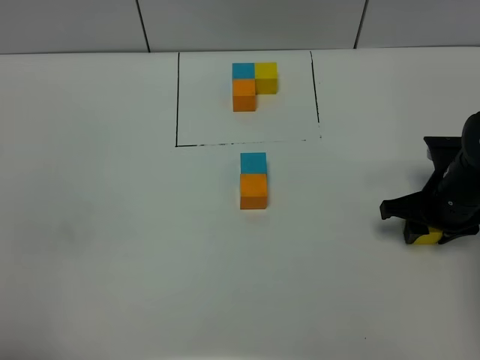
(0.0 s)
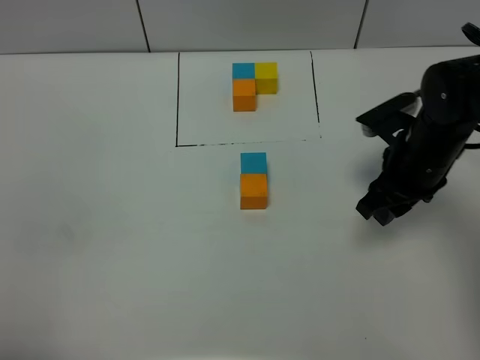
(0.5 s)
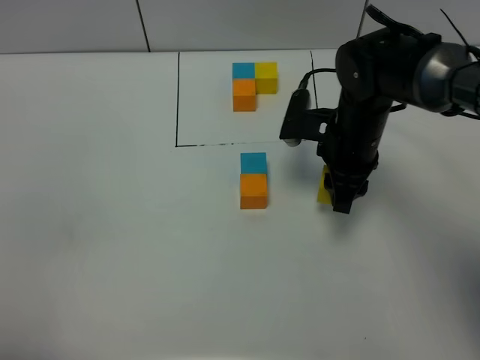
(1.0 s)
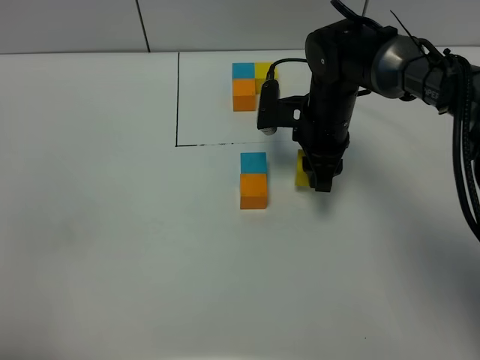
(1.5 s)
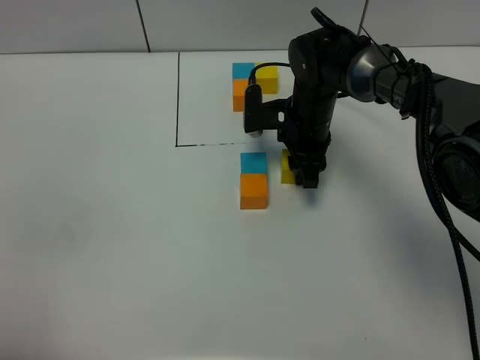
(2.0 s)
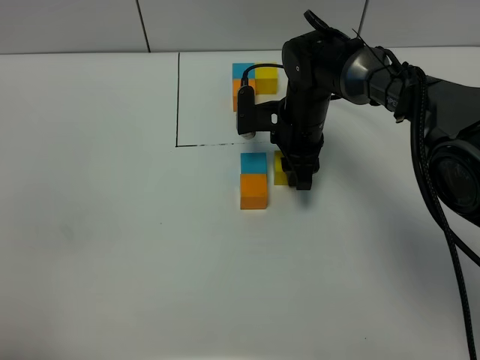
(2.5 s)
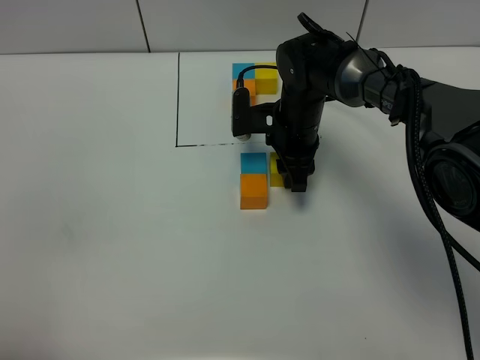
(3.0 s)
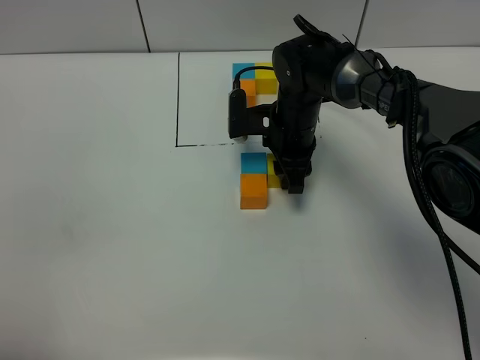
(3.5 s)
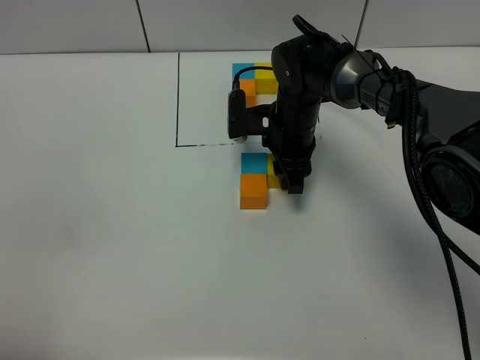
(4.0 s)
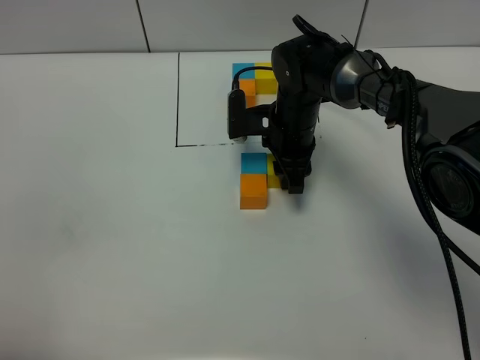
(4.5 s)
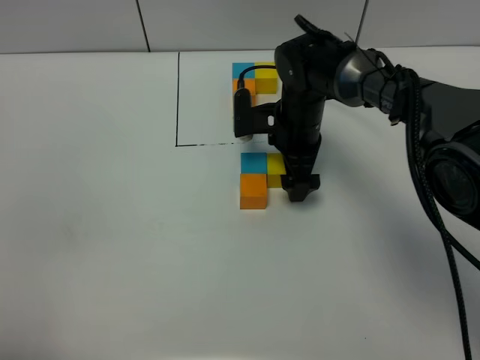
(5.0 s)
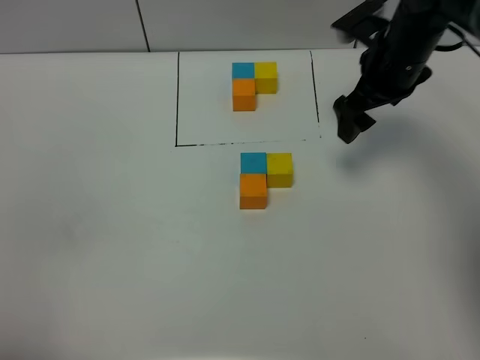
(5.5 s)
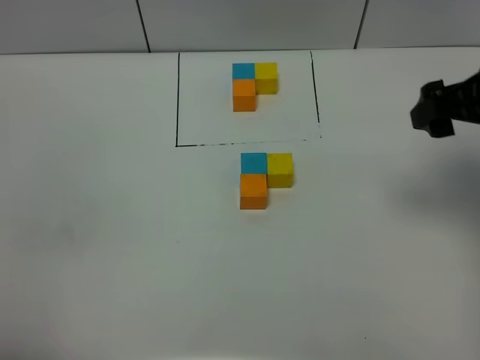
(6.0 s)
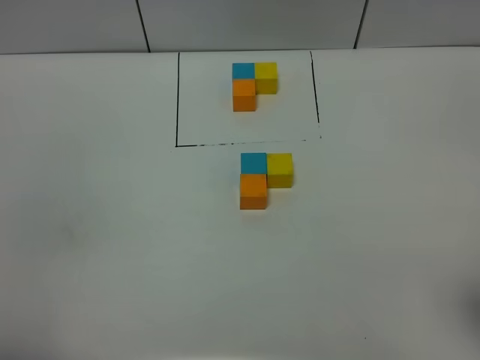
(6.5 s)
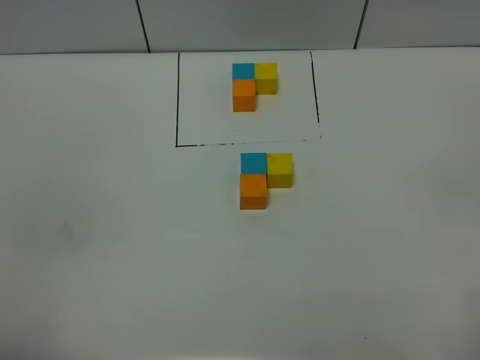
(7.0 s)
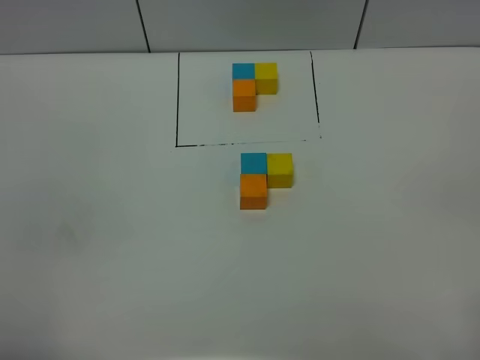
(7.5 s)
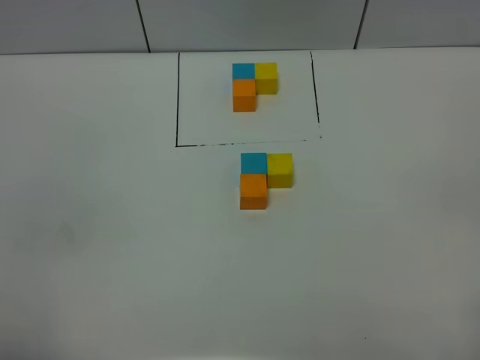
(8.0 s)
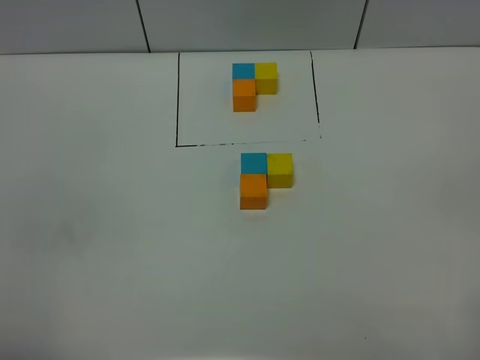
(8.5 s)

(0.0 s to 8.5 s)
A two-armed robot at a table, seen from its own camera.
Task of the whole recording: According to the building block template in front, assemble the scattered blocks together.
Step, 0.0 s - 3.0 s: Put the yellow build block on the right of the blue build block.
0.0 s - 2.0 s: The right gripper is displaced to the left and forward by some 20 cm.
2.0 s - 4.0 s: The grippers stay close to where they were, moving slightly.
4.0 s - 6.5 s: The right gripper is displaced backward, to the right and upward by roughly 40 cm, and opens its fingers.

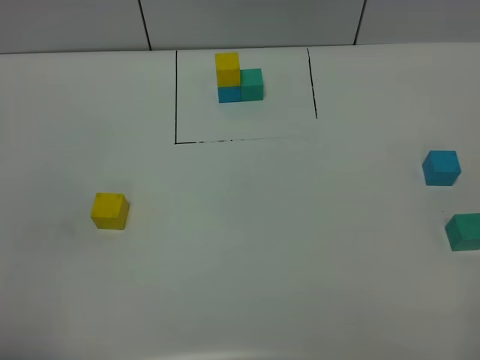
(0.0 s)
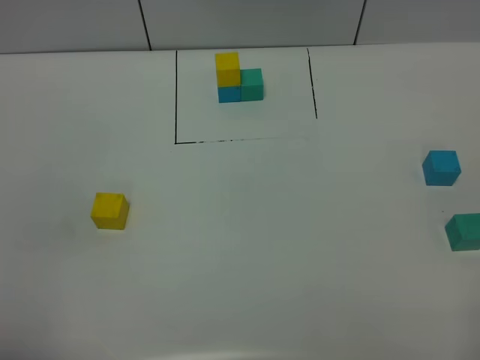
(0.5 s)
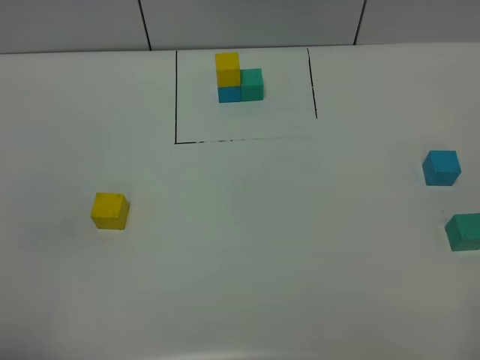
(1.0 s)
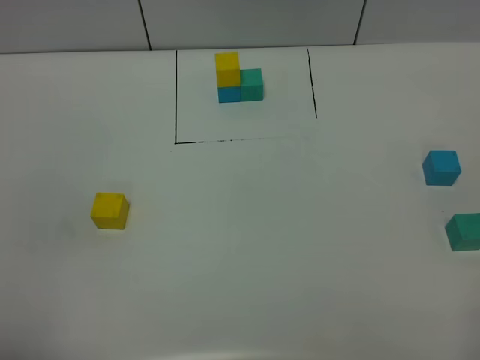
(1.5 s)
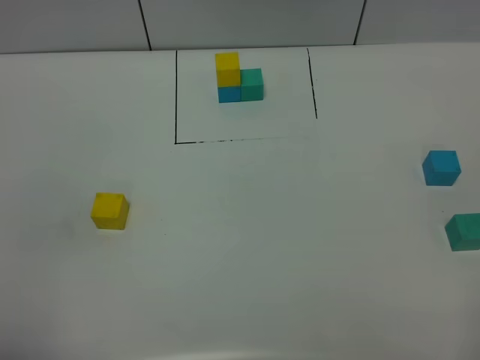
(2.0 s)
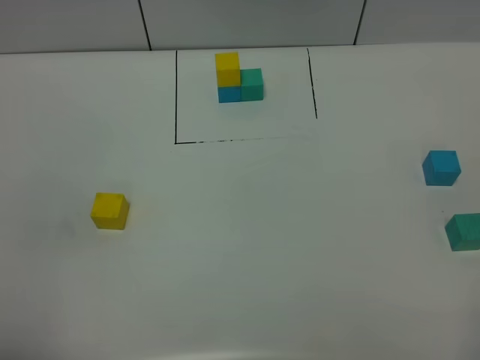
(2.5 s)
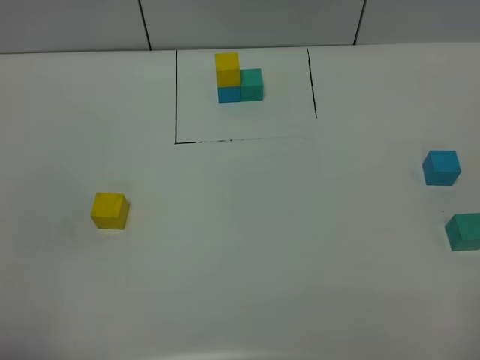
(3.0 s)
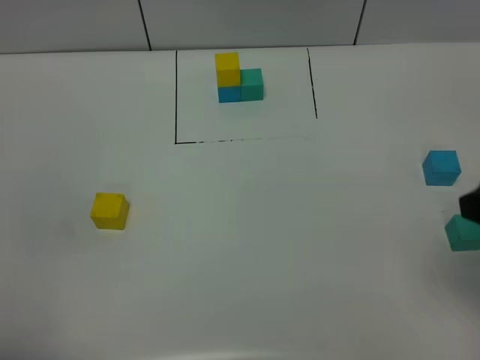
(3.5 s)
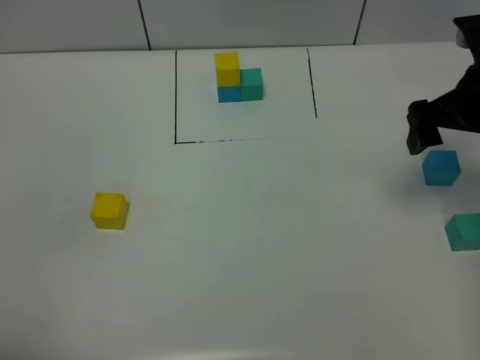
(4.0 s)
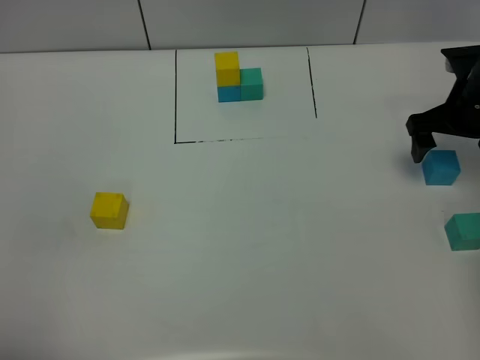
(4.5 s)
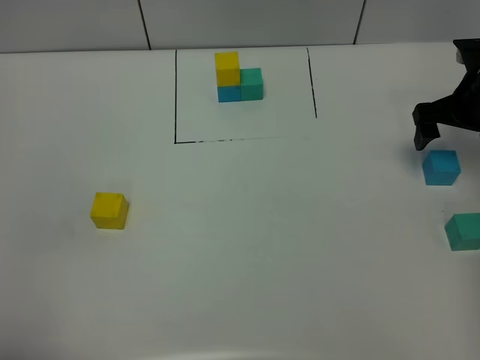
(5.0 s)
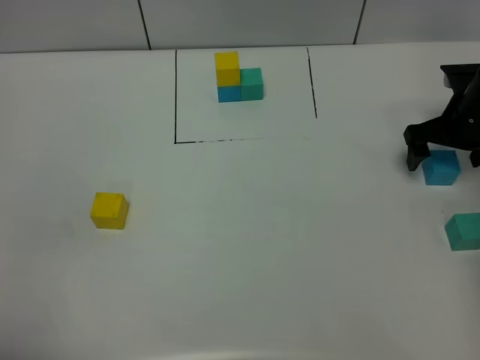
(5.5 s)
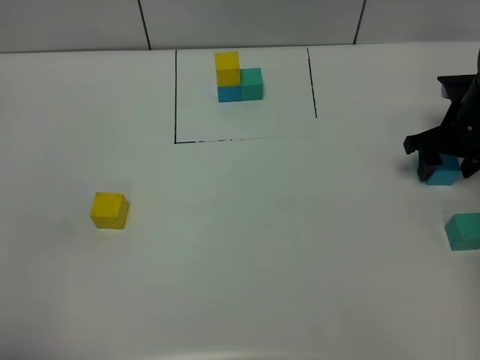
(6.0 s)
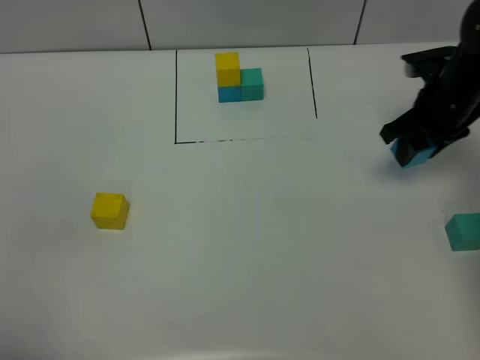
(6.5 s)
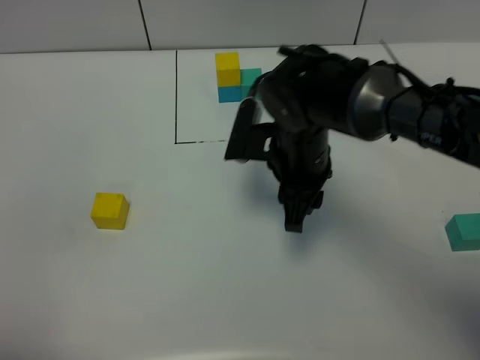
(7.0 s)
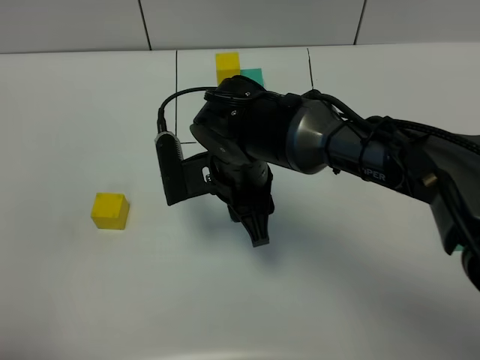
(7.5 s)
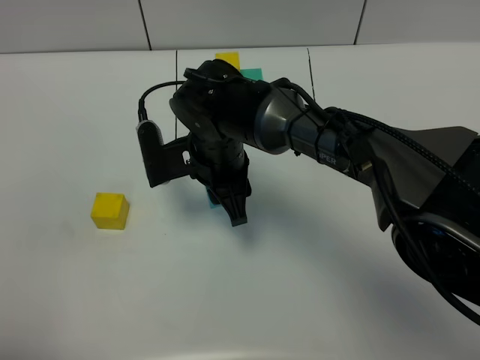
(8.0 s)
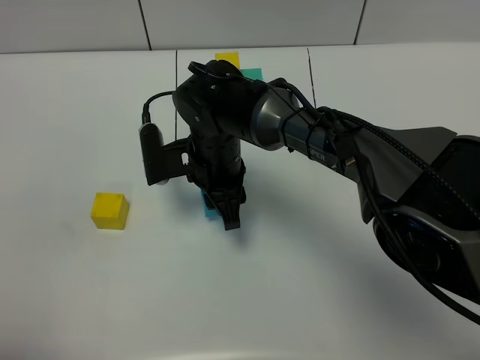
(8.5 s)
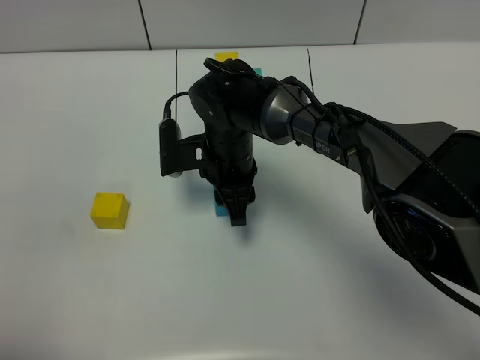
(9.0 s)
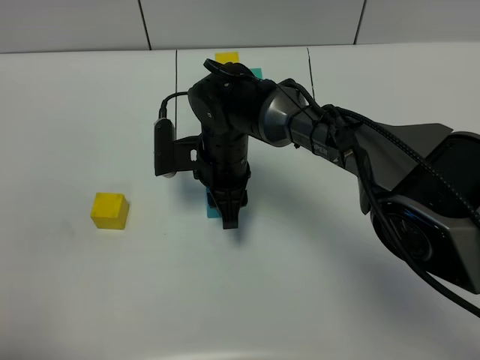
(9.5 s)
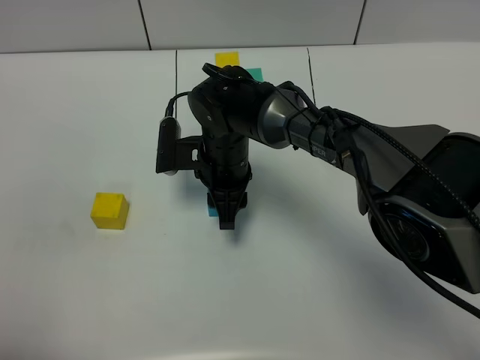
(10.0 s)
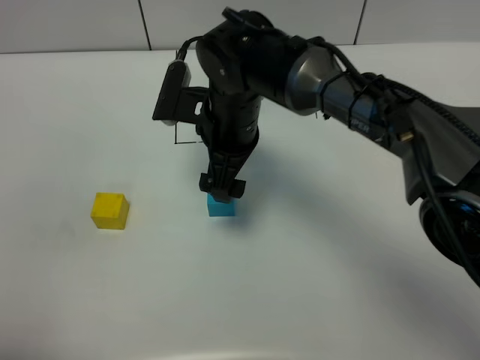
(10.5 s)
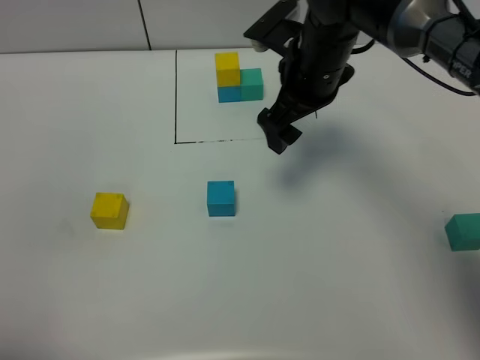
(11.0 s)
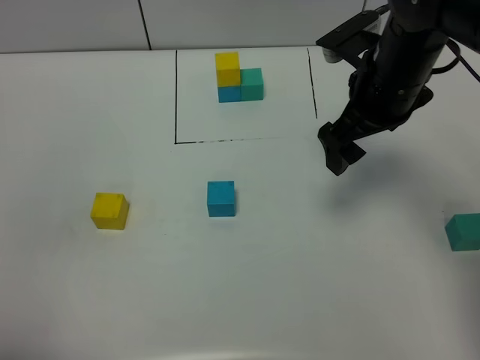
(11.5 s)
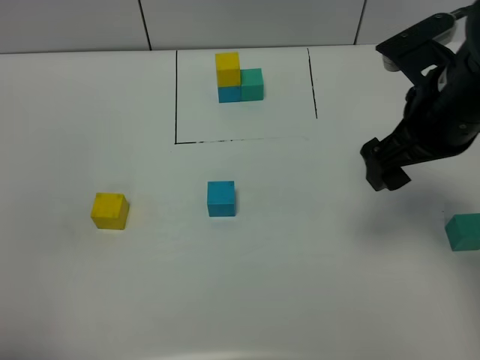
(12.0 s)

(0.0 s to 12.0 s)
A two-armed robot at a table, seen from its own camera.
Task of the whole recording: According to the building block template in front, assemble the scattered blocks together.
Step, 0.0 s - 10.0 s: Put the blue build block in the center of the table.
0.0 s - 2.0 s: Both grippers stay put.
2.0 s - 4.0 s: The right gripper travels forward by about 35 cm.
4.0 s - 6.0 s: The right gripper travels downward, forward and to the right by some 15 cm, and closes its fingers.
6.0 s - 8.0 s: The right gripper heads to the left, covering roughly 35 cm.
8.0 s - 10.0 s: The right gripper moves approximately 5 cm.
10.0 s - 12.0 s: The right gripper heads to the right, upward and backward, covering some 30 cm, and opens its fingers.

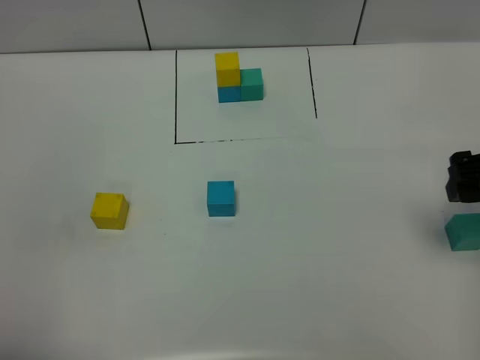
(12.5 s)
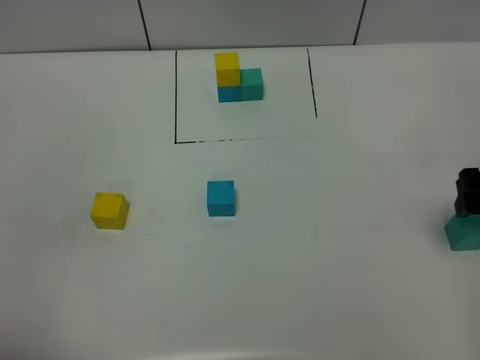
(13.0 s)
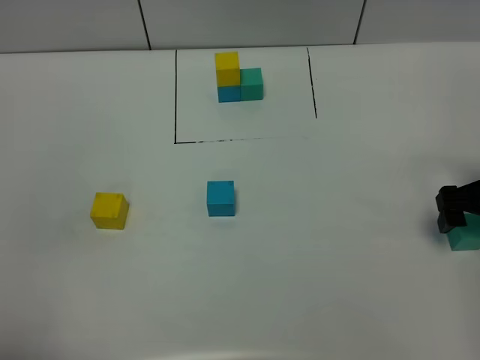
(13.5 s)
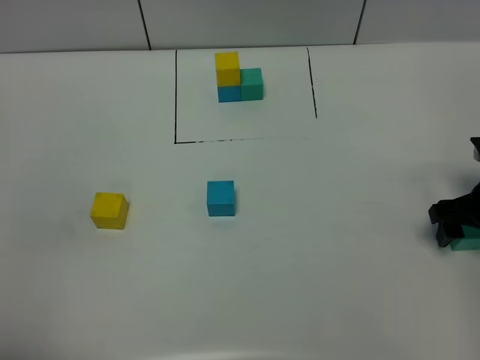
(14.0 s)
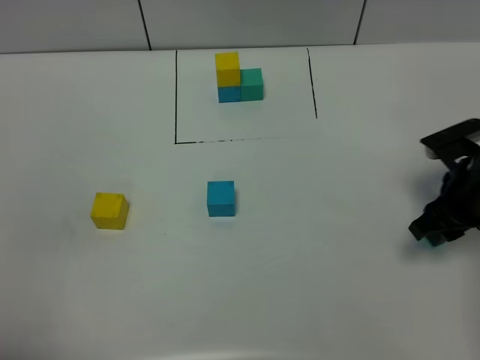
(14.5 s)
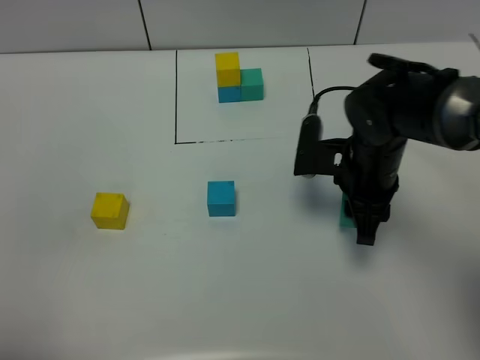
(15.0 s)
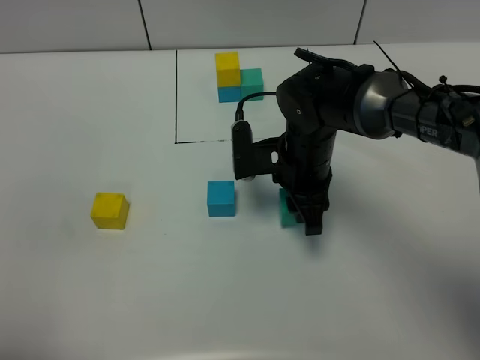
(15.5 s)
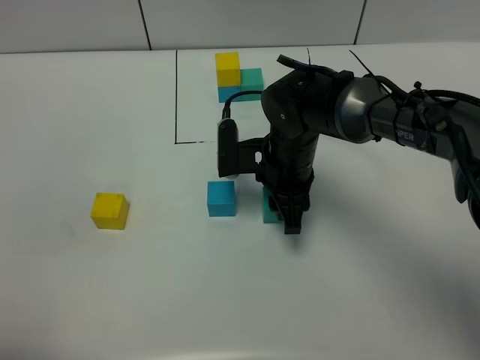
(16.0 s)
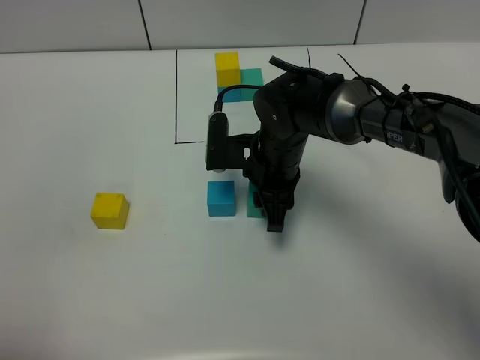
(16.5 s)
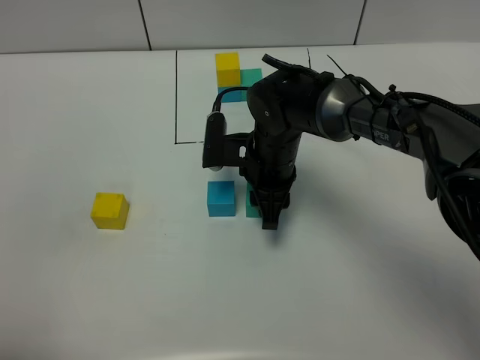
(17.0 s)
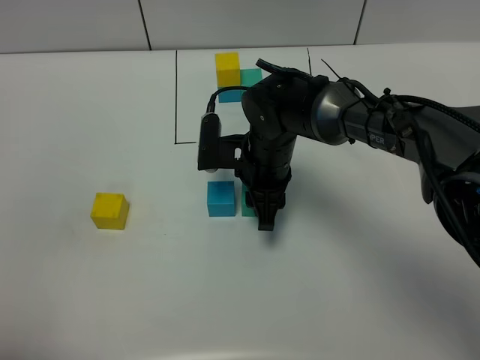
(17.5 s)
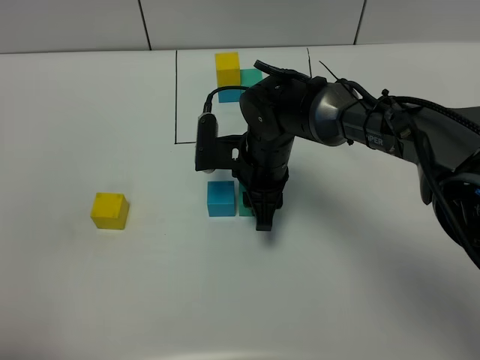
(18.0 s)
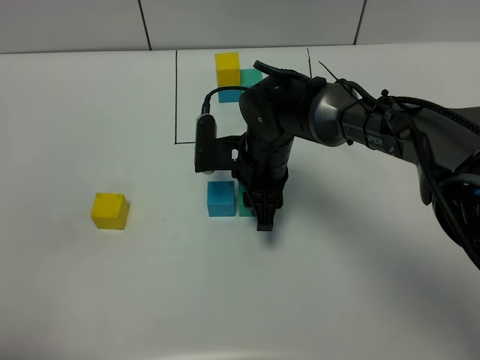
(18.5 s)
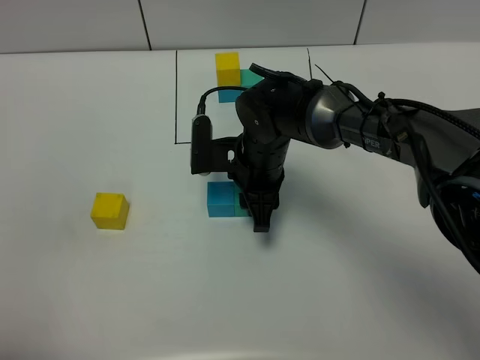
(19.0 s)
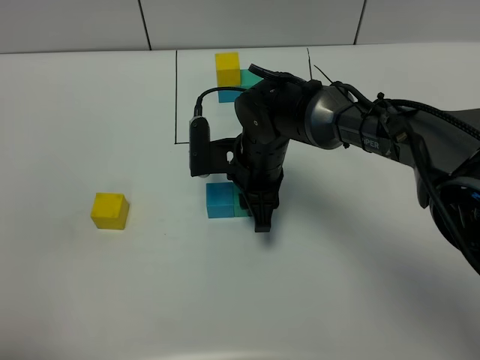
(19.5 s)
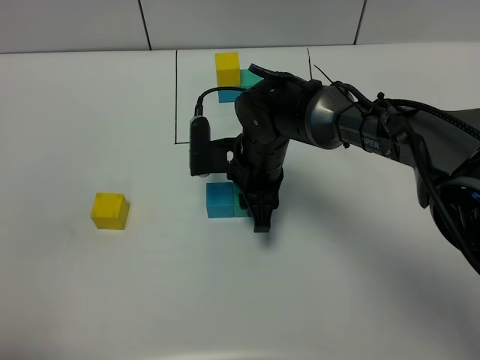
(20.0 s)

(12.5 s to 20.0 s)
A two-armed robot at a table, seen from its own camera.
Task of the whole recording: According to the building block template in front, assemble the scattered blocks together.
12.5 s - 14.5 s: The right gripper is displaced downward by about 10 cm, and closes its fingers.
14.5 s - 16.5 s: The right gripper moves to the left, some 20 cm.
16.5 s - 18.0 s: There are only small adjustments of the grippers.
18.0 s - 20.0 s: Both grippers stay about where they are.
